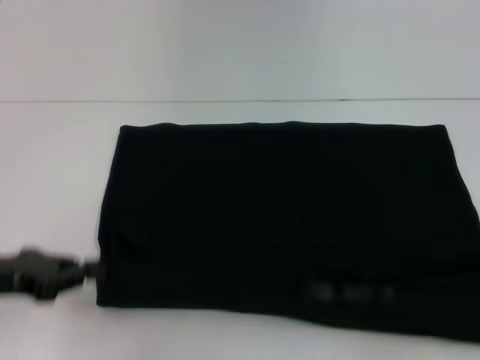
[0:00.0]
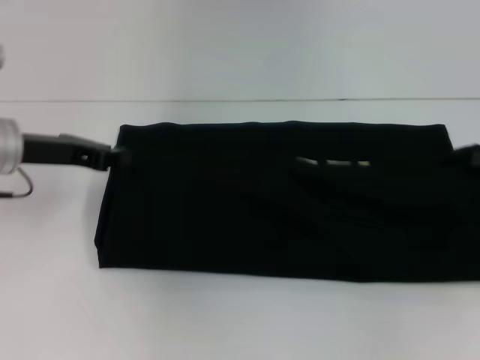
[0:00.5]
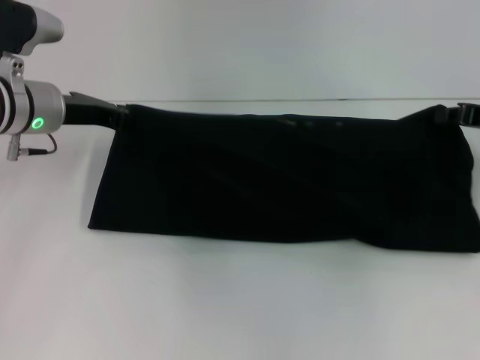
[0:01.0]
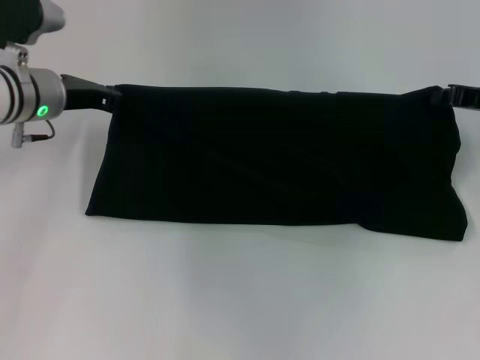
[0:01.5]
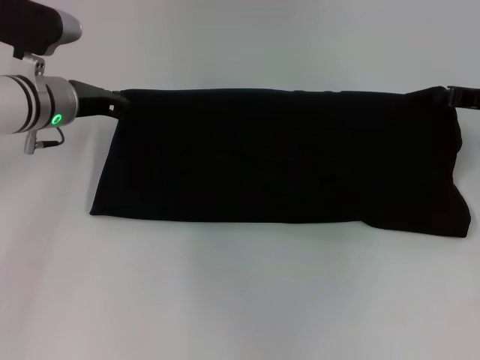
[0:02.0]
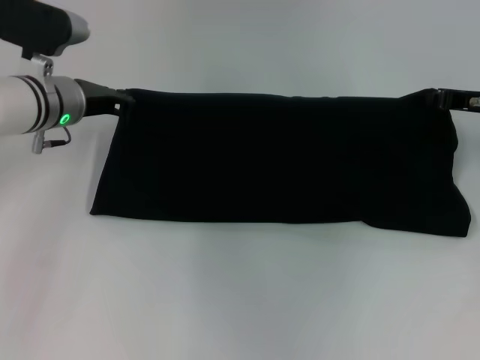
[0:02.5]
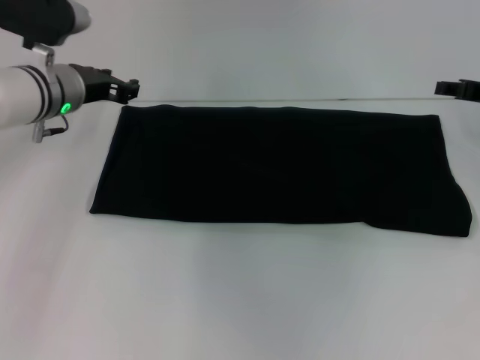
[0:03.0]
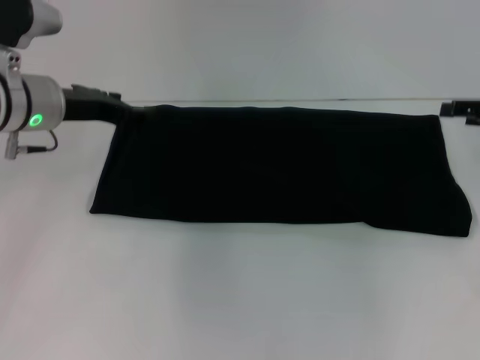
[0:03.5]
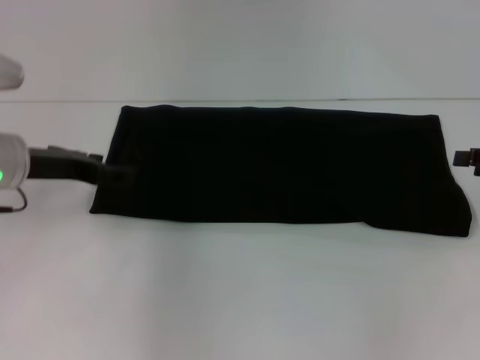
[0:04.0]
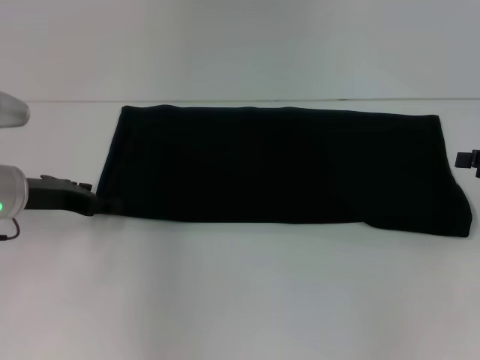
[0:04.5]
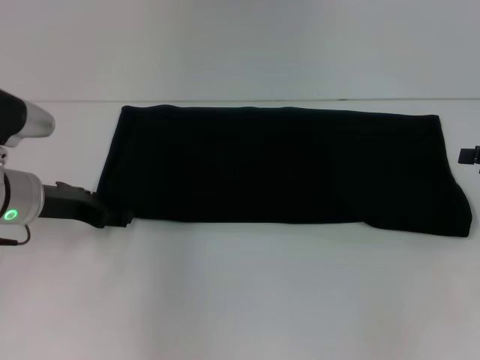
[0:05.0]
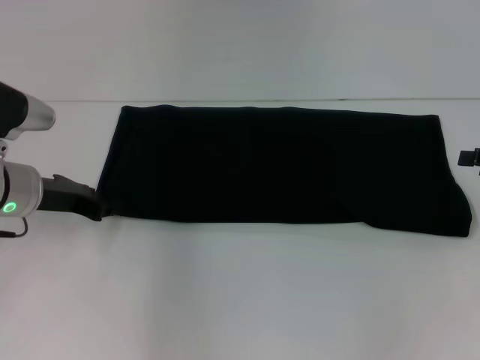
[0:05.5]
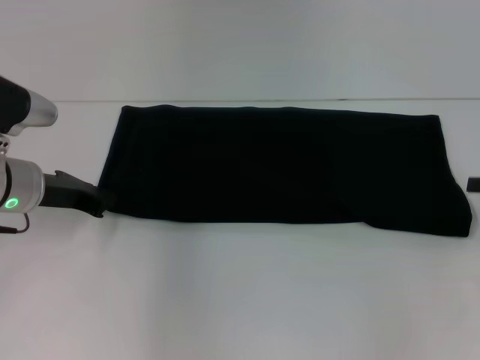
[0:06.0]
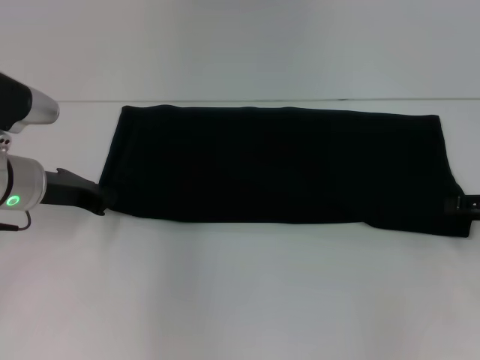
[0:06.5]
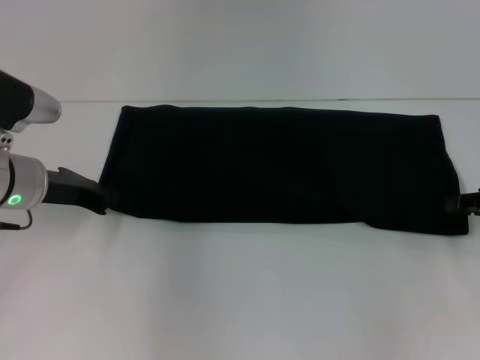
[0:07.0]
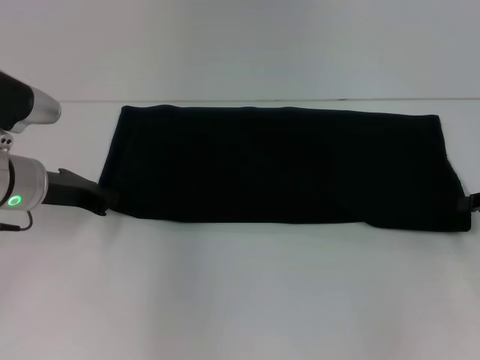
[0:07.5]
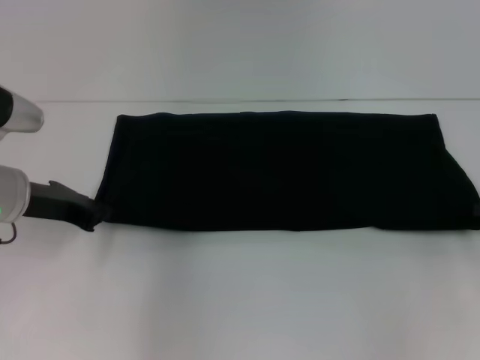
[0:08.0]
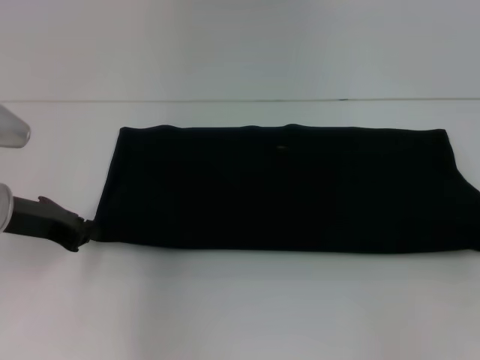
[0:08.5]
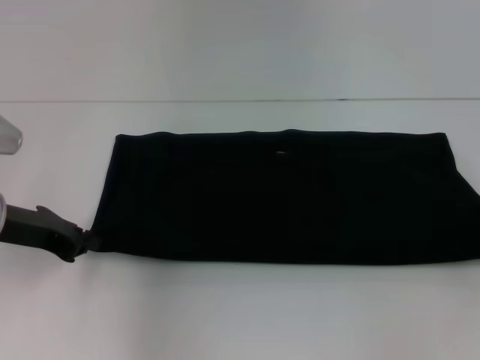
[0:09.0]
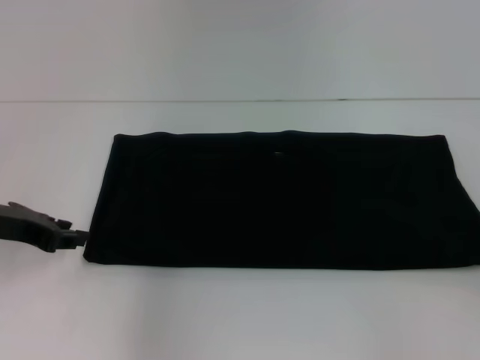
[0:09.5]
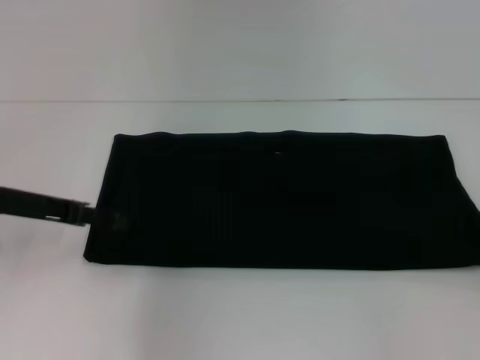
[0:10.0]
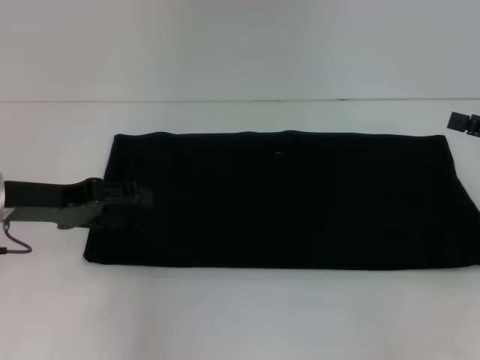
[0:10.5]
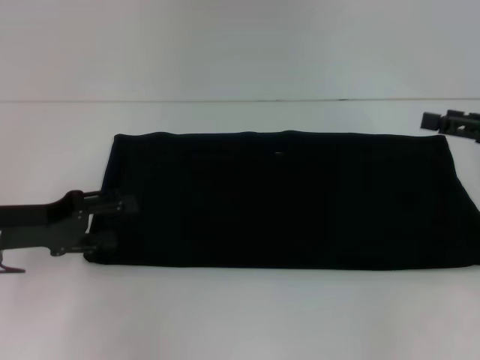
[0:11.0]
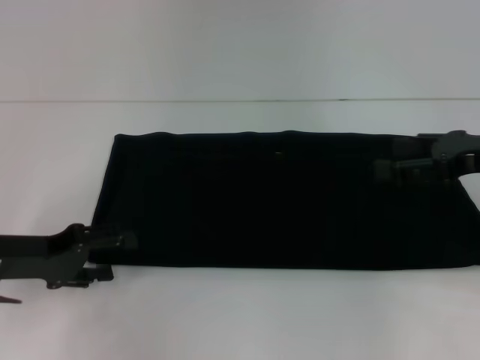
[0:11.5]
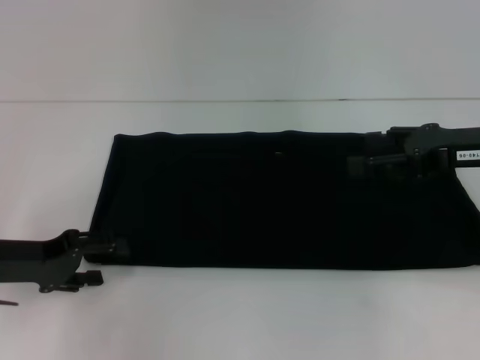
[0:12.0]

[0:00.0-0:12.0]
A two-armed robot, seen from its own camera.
Step, 0:00.0 to 0:03.5: Fold the clothes with your right hand.
0:00.0 to 0:02.0: The right gripper shifts approximately 25 cm forward and to the left, while the left gripper goes roughly 20 cm forward and to the right.
0:02.0 to 0:04.0: The right gripper shifts about 10 cm backward and to the right, and opens its fingers. The left gripper goes about 10 cm backward, and opens up.
0:04.0 to 0:06.0: The left gripper closes up.
0:06.0 to 0:08.0: The right gripper closes up.
0:08.0 to 0:10.0: The right gripper changes place by some 5 cm, and opens up. Meanwhile the left gripper opens.
0:10.0 to 0:12.0: The left gripper heads downward, covering roughly 10 cm. Meanwhile the right gripper moves to the left and forward, approximately 15 cm.

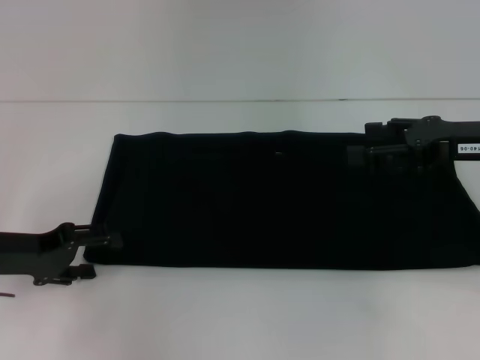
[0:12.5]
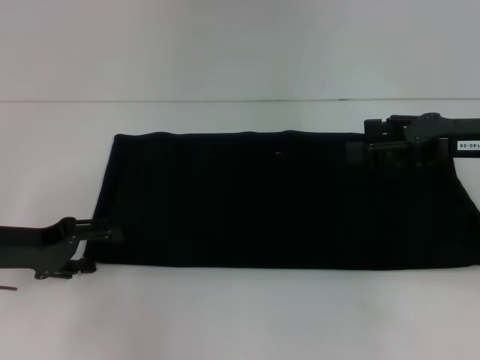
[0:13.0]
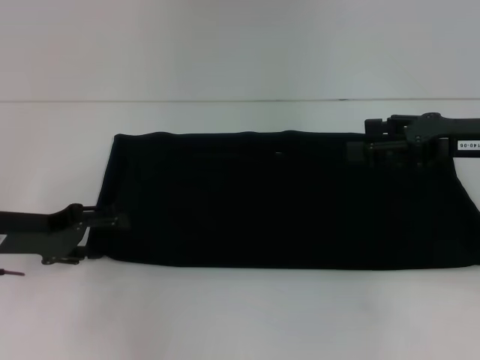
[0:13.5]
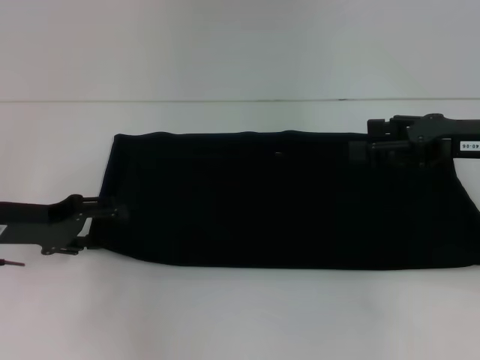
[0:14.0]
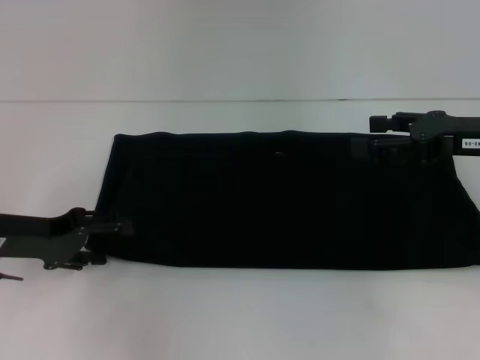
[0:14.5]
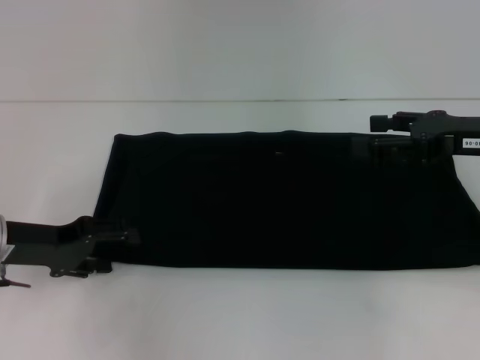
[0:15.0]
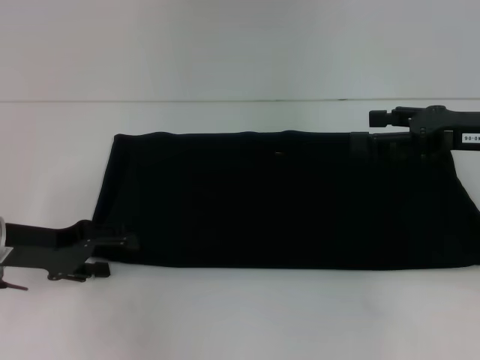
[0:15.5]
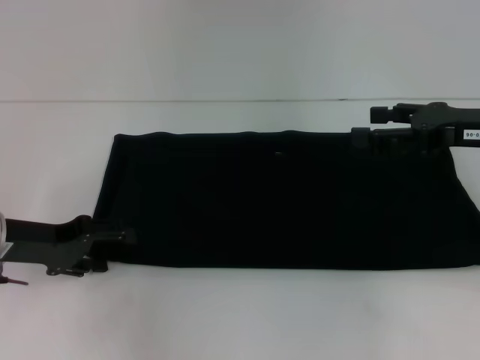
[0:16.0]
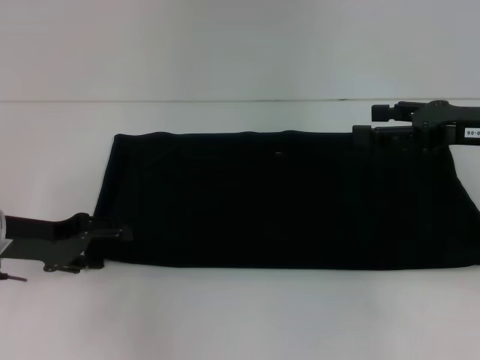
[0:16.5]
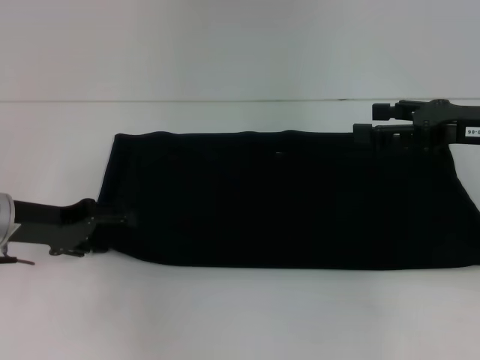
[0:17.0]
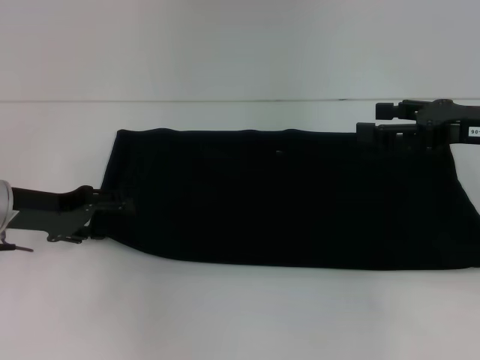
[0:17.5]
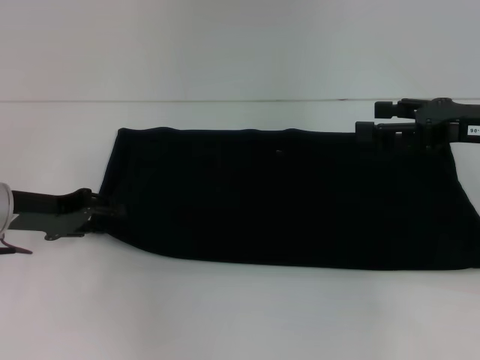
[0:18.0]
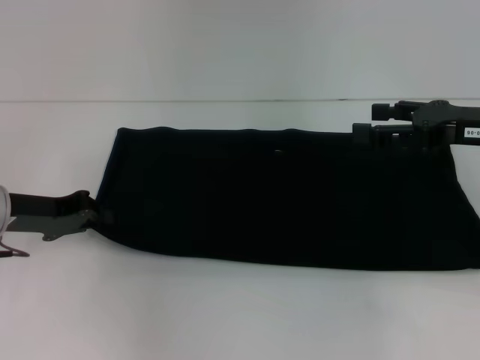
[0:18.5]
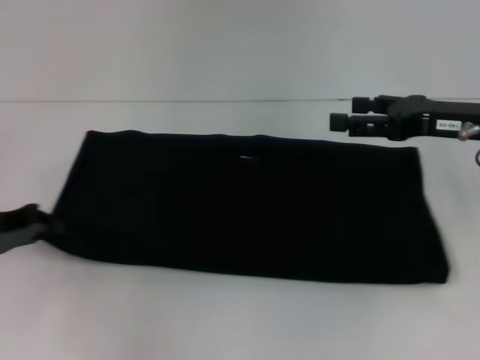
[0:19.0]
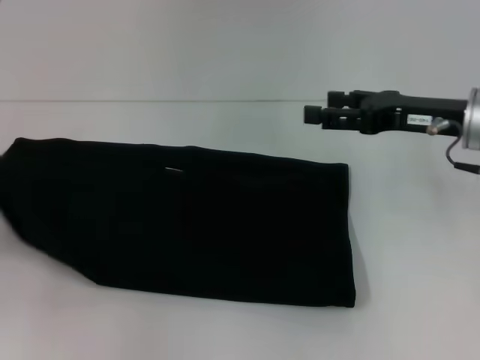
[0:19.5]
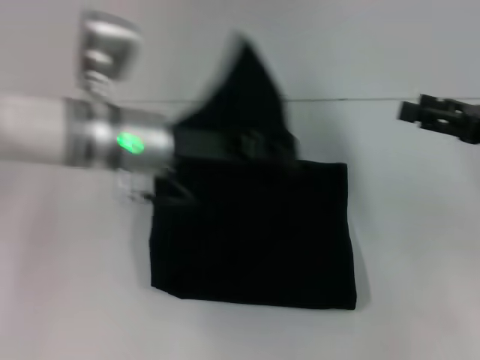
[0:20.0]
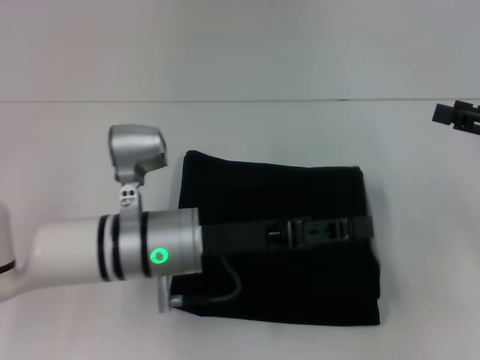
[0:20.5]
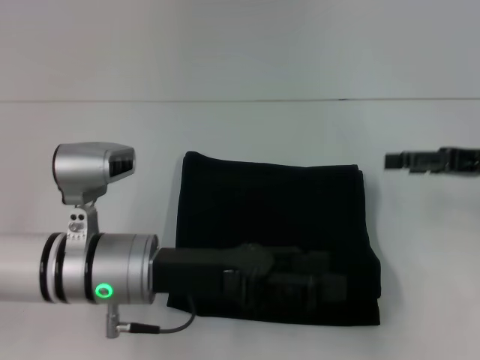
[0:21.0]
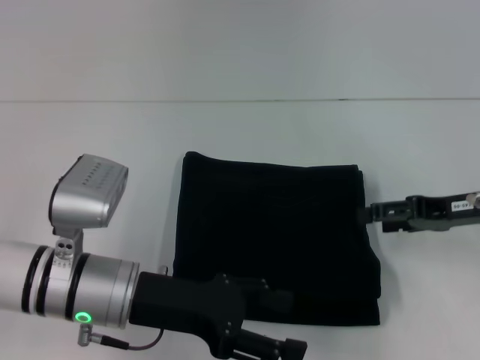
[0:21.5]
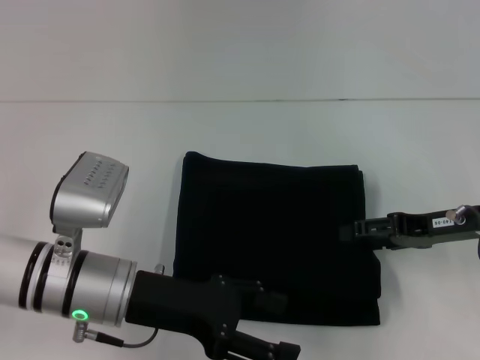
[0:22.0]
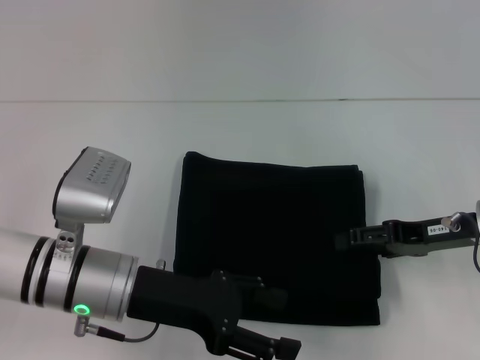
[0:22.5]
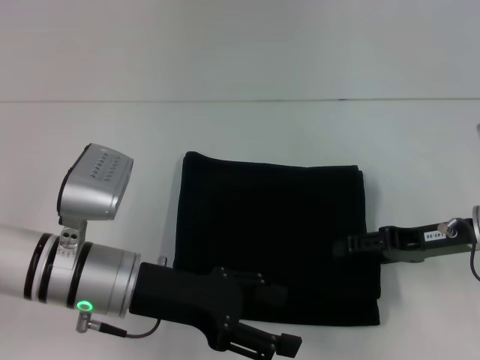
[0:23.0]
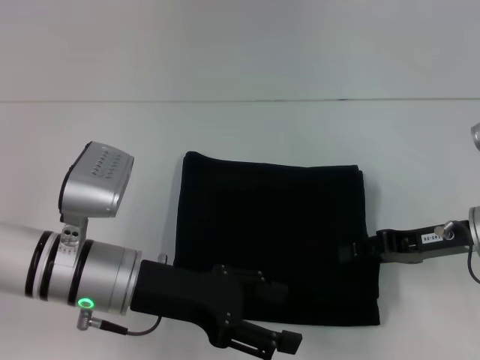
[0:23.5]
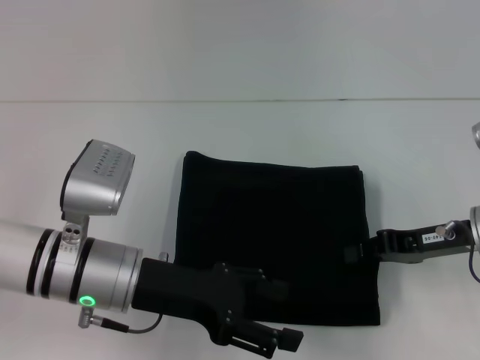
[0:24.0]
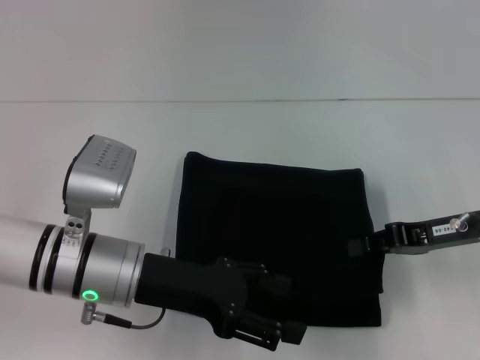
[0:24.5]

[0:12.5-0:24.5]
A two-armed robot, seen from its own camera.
Step, 0:12.5 to 0:20.5: Fold the clothes with your left hand.
0:12.5 to 0:14.5: There are only small adjustments of the grippers.
0:14.5 to 0:16.5: Neither gripper changes place.
0:16.5 to 0:18.5: The left gripper closes its fingers.
0:18.5 to 0:20.5: The left gripper goes about 20 cm to the right, while the right gripper moves to the right, roughly 5 cm.
0:20.5 to 0:22.5: The left gripper heads to the left, covering about 5 cm, and opens. Meanwhile the right gripper is displaced to the left and downward by about 10 cm.
0:22.5 to 0:24.5: The right gripper closes.

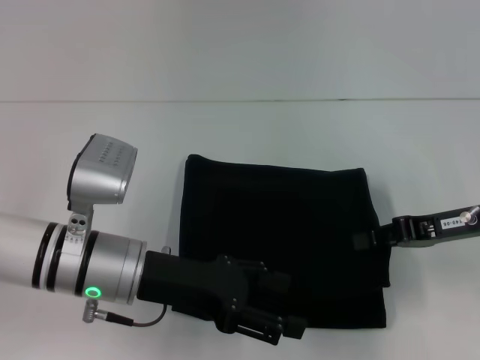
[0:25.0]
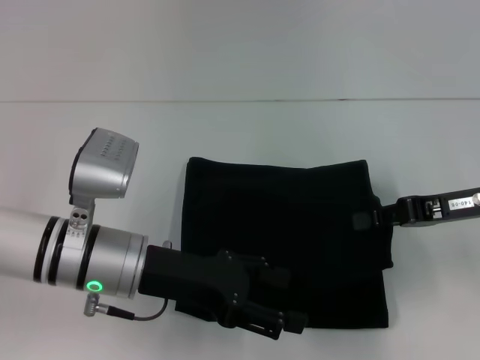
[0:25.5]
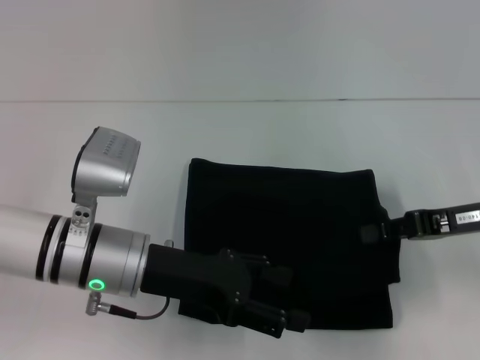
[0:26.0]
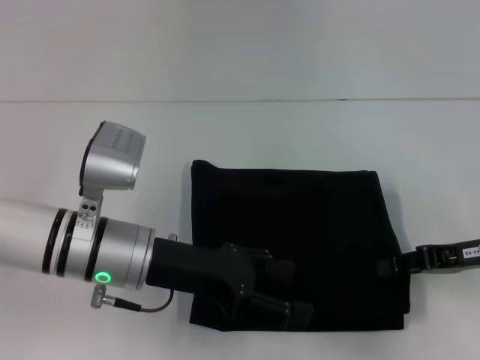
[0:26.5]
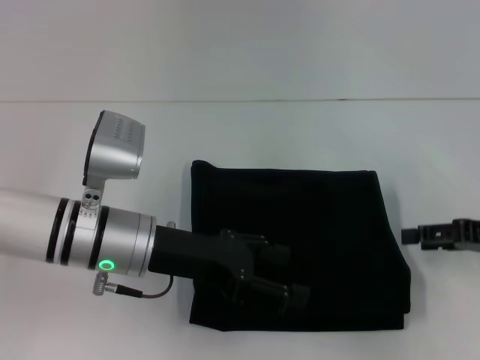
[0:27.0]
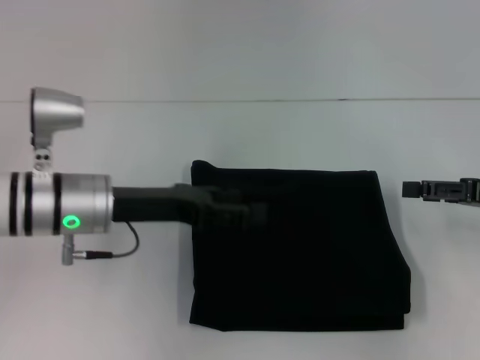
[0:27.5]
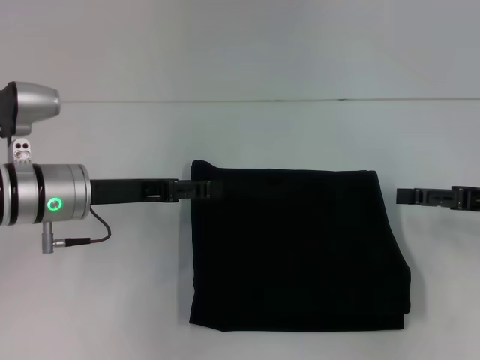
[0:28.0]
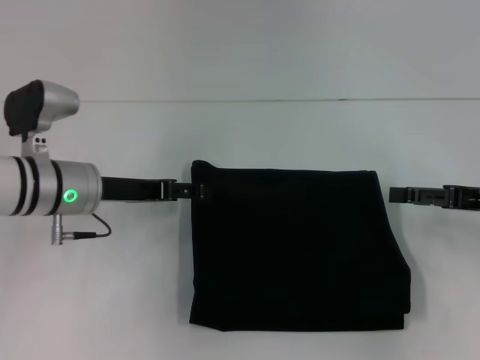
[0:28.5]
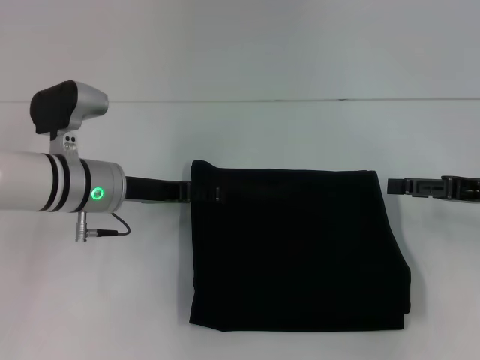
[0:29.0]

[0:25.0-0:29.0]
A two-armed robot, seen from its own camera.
0:25.0 to 0:27.0: The right gripper goes approximately 5 cm to the right, and opens up.
0:27.0 to 0:29.0: The right gripper opens up; the left gripper moves forward, approximately 5 cm.
